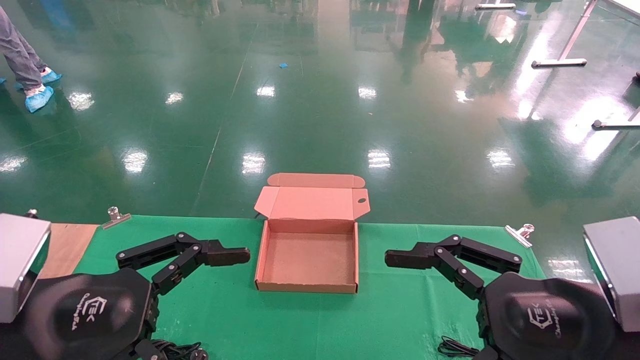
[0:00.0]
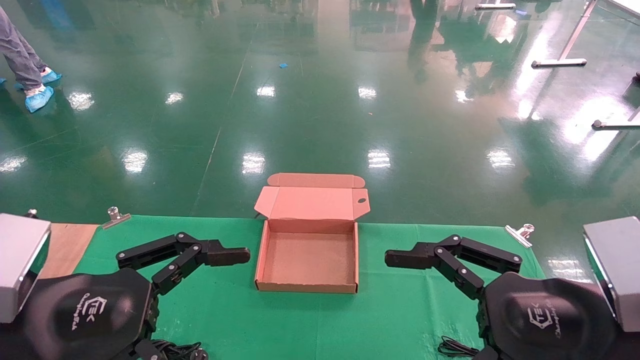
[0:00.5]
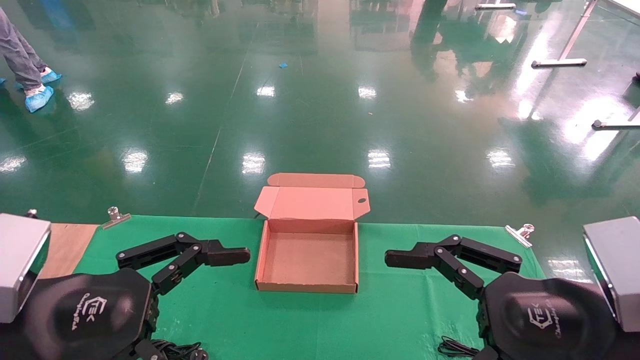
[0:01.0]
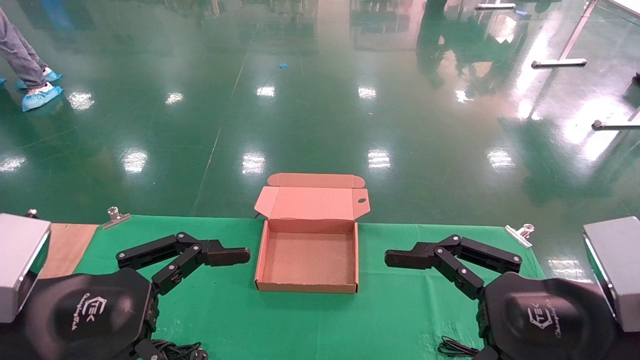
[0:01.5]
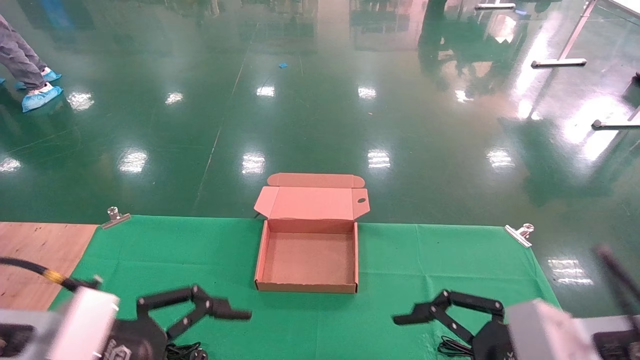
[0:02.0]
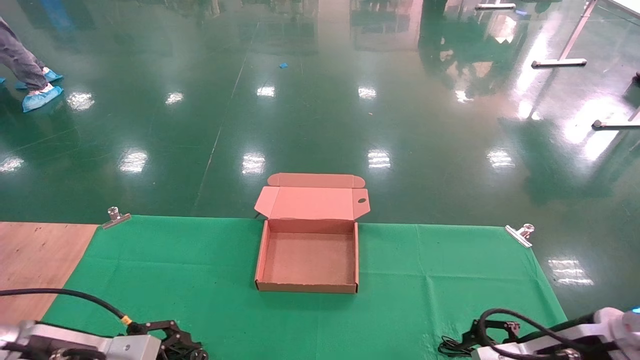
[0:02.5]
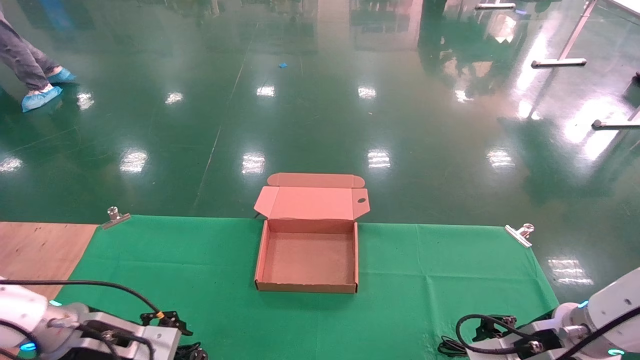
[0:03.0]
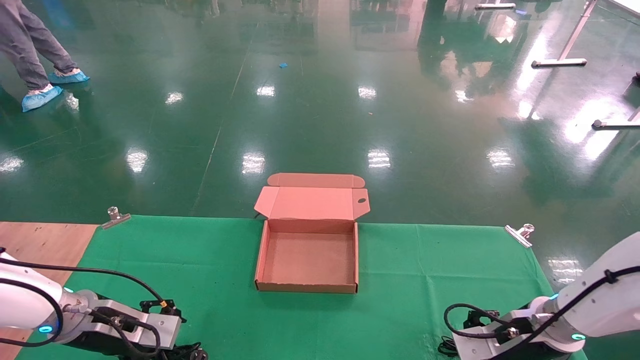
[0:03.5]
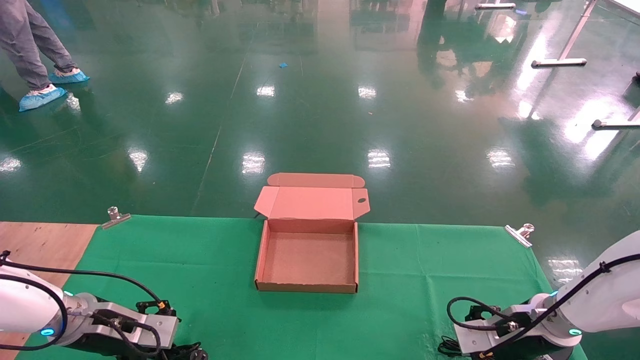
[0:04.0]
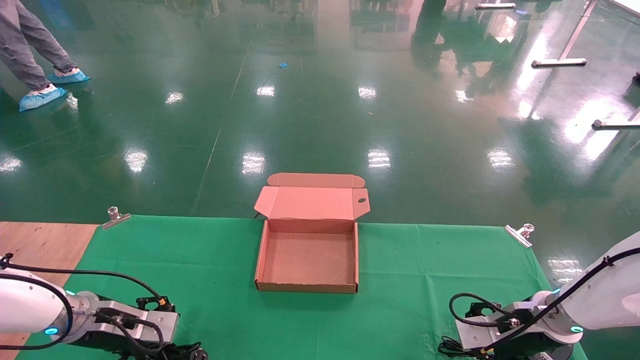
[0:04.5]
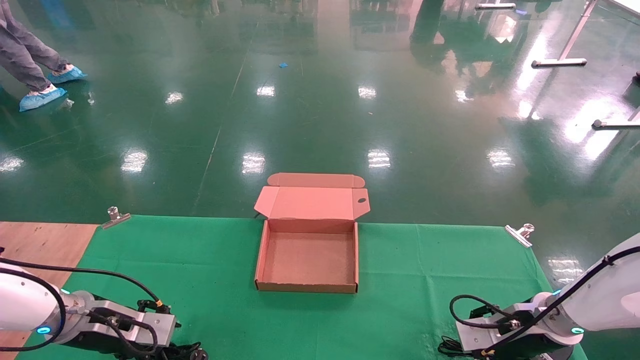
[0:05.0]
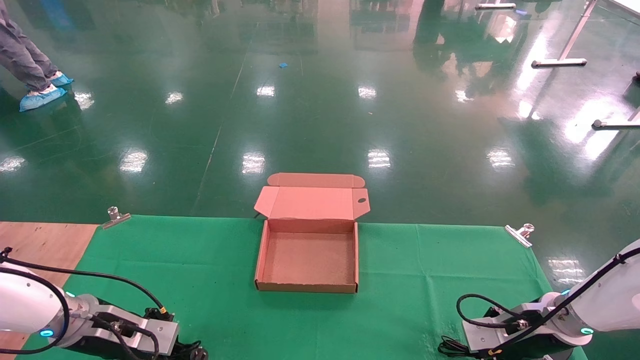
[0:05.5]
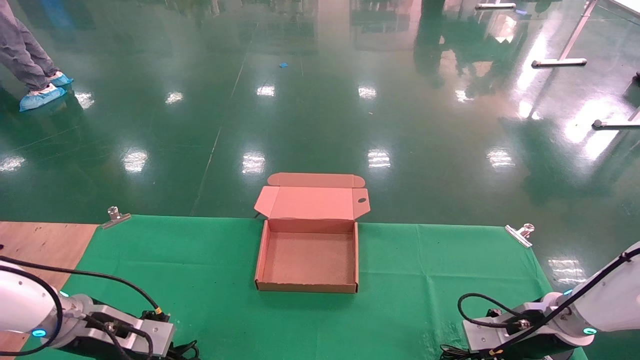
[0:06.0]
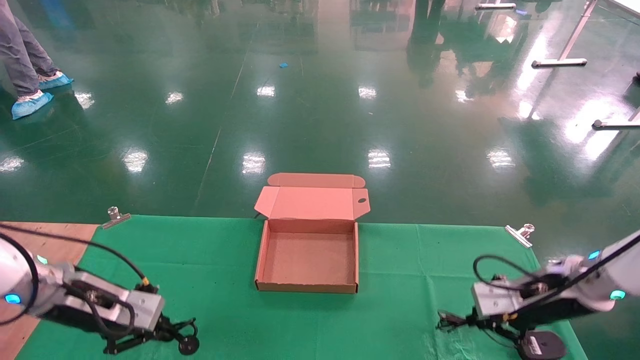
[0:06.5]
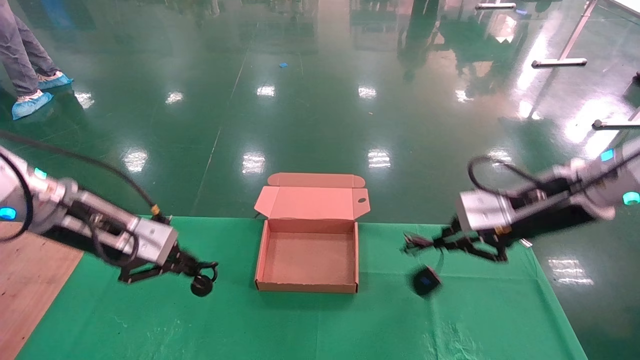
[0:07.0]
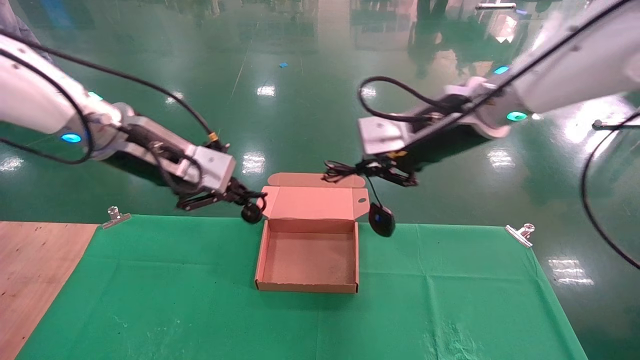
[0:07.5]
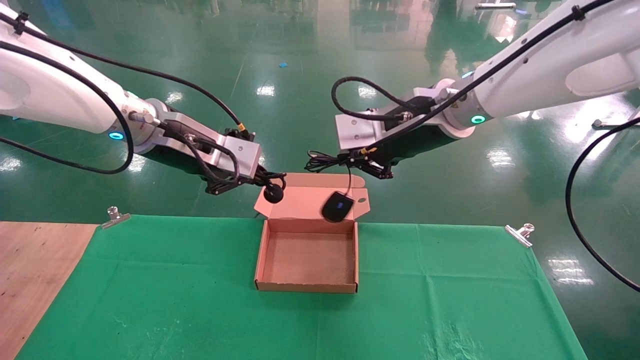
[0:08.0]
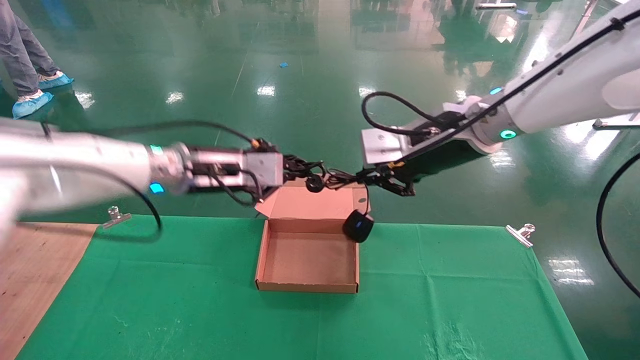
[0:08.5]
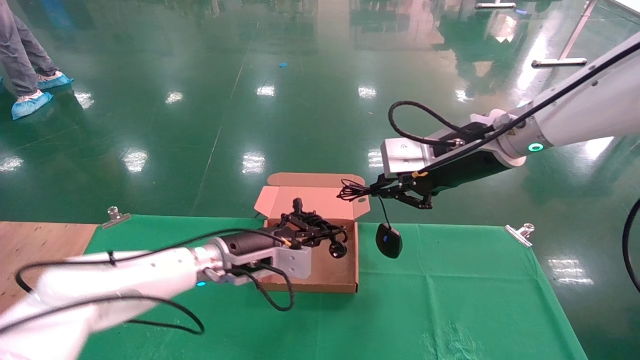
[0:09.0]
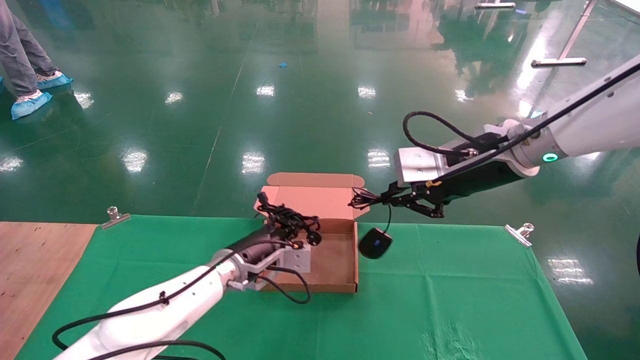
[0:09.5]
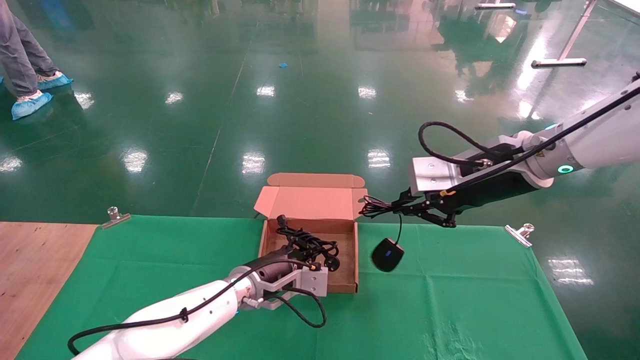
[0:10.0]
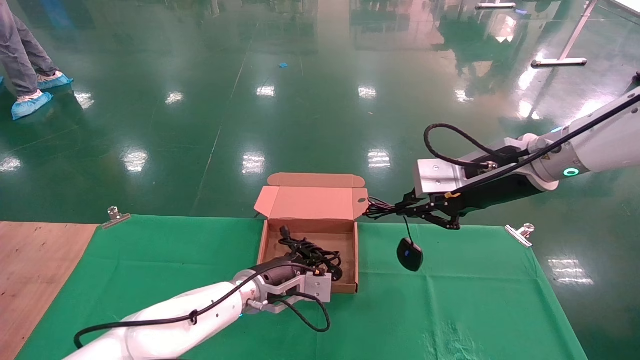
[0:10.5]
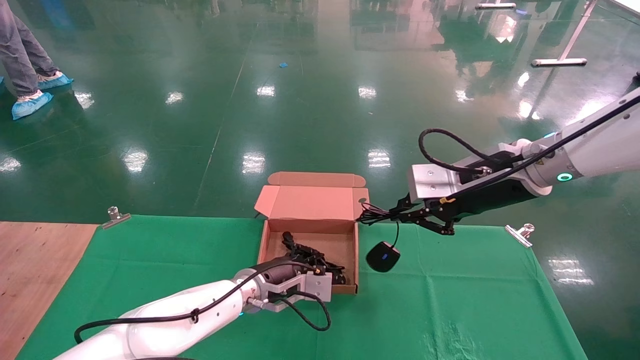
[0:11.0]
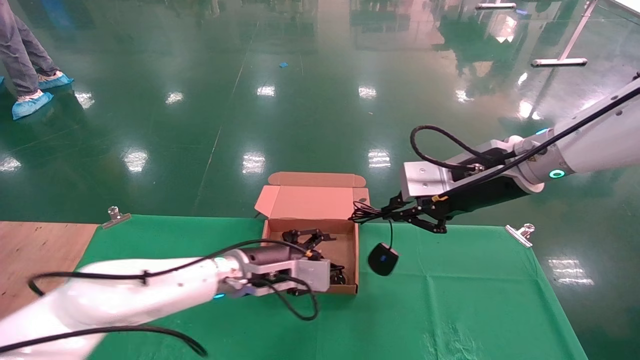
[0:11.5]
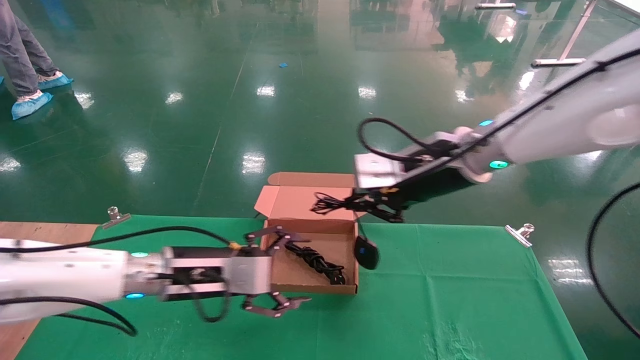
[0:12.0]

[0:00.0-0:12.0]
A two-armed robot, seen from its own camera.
Step, 0:02.0 to 0:07.0: Grab and lift both the mouse and power cord from the accessory packaging area at the same time.
0:02.0 to 0:04.0: The left gripper travels forward, downward and to the left by about 25 cm. The right gripper is displaced forward and downward by some 25 cm.
0:04.0 to 0:06.0: The right gripper closes up. The left gripper closes its fingers.
0:06.0 to 0:08.0: The left gripper heads upward and to the right, covering roughly 30 cm; the right gripper travels upward and to the left by approximately 35 cm.
0:08.0 to 0:10.0: The left gripper moves downward, approximately 30 cm. The right gripper is displaced to the right and downward by approximately 10 cm.
0:10.0 to 0:12.0: The right gripper is displaced to the left by about 10 cm, while the left gripper moves to the left, backward and upward, approximately 15 cm, and opens.

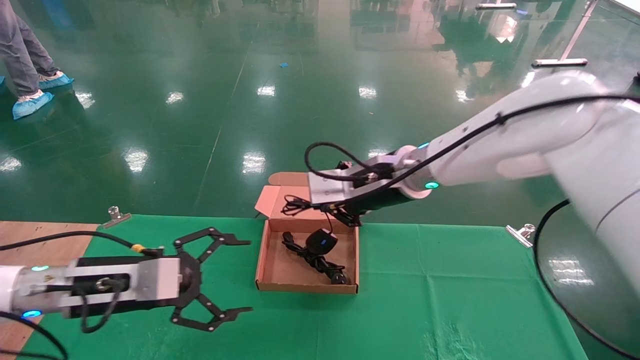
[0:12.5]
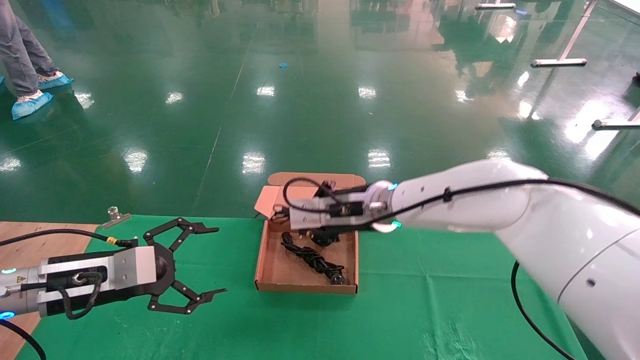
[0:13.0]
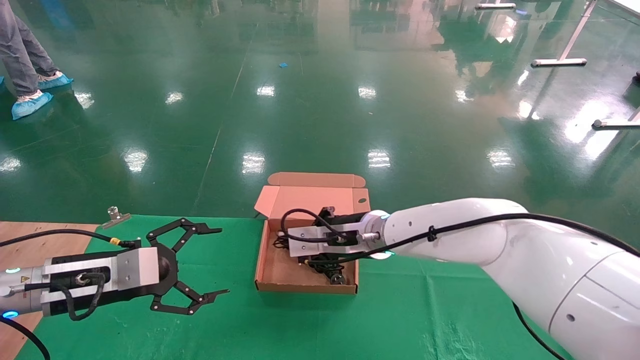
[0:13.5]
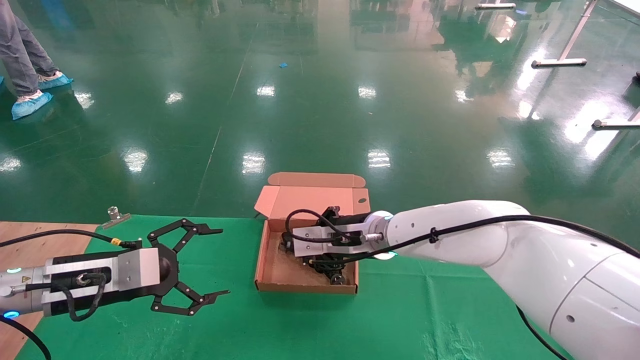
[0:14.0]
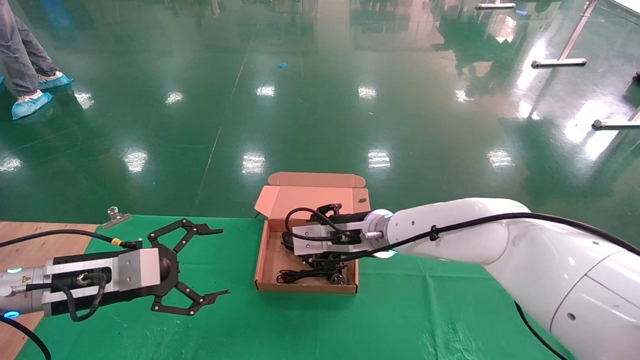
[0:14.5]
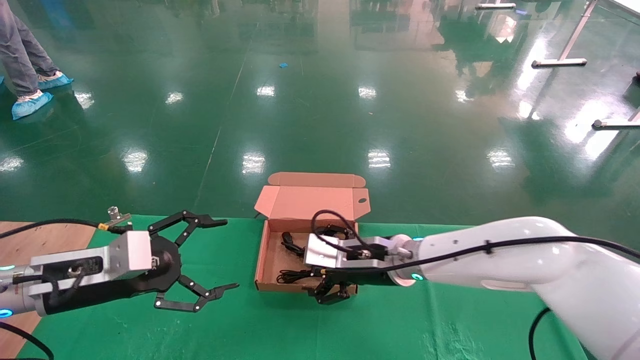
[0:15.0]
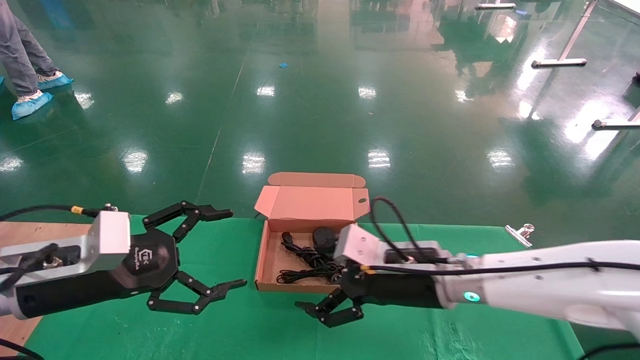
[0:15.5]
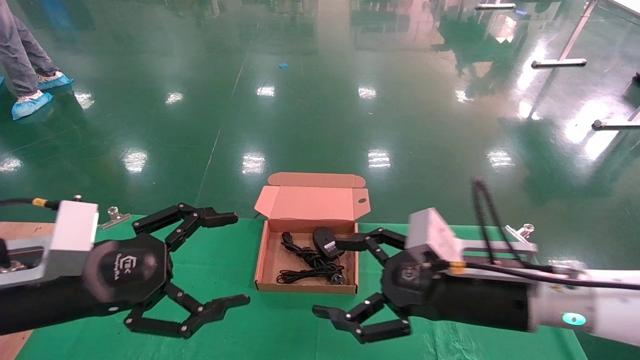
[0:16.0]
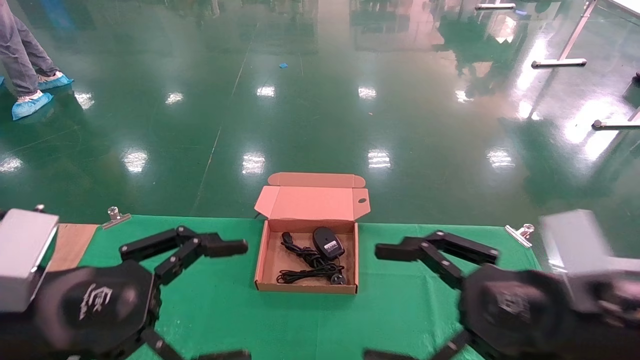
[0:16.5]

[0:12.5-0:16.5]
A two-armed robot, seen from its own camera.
Step, 0:12.5 to 0:15.0: Place the mouse and power cord into the box.
0:12.5 to 0:14.5: The right gripper goes approximately 10 cm downward, and opens up.
0:14.5 to 0:16.5: The left gripper travels backward and upward by some 15 cm, while the right gripper is displaced backward and to the right by about 30 cm, and opens up.

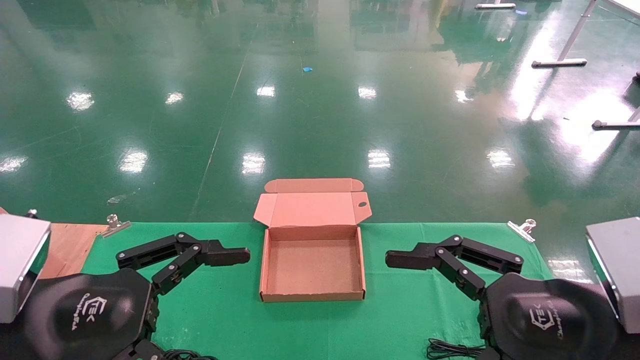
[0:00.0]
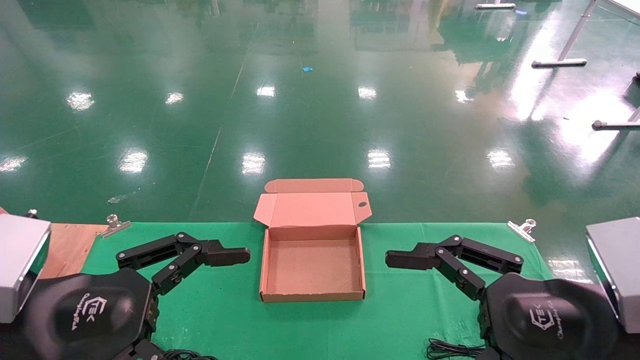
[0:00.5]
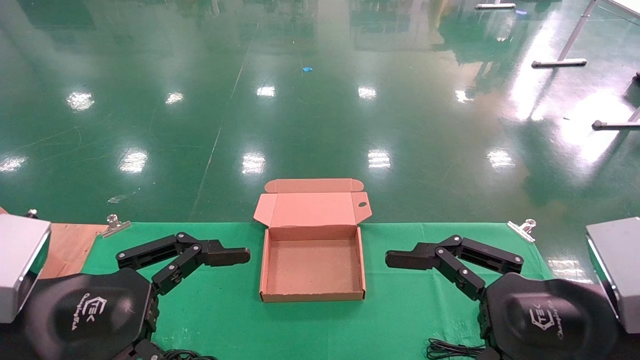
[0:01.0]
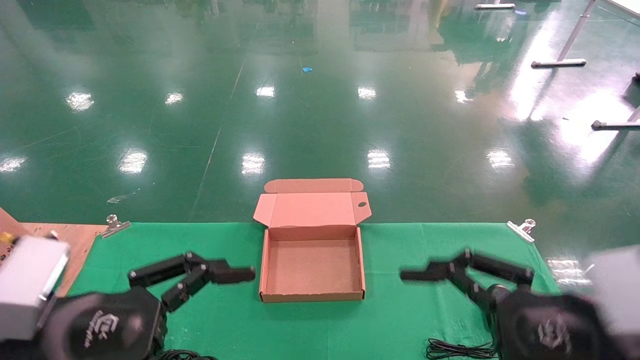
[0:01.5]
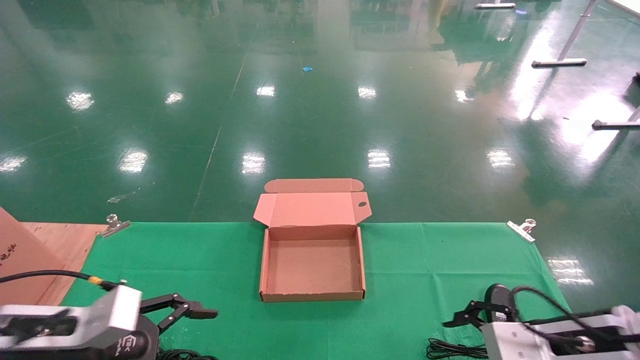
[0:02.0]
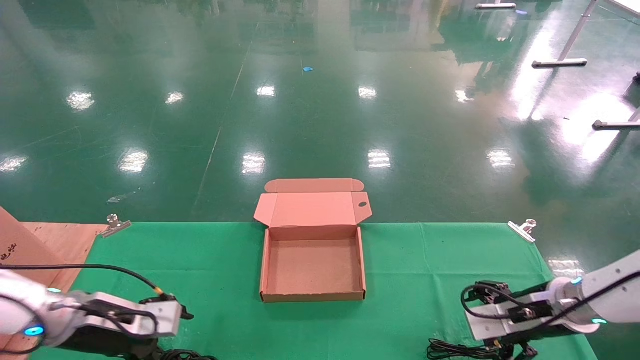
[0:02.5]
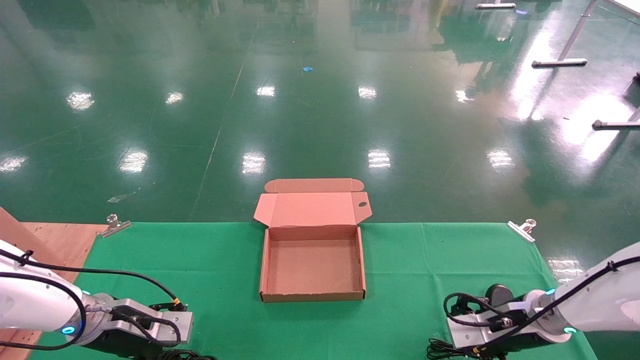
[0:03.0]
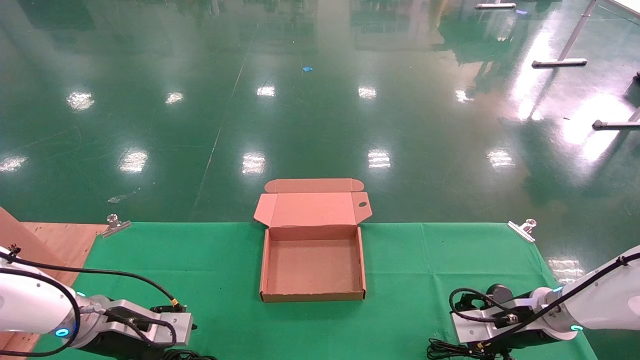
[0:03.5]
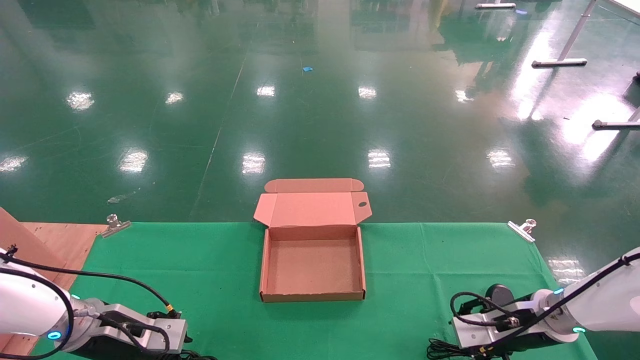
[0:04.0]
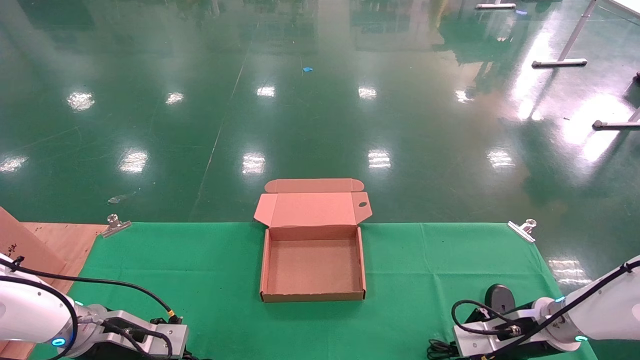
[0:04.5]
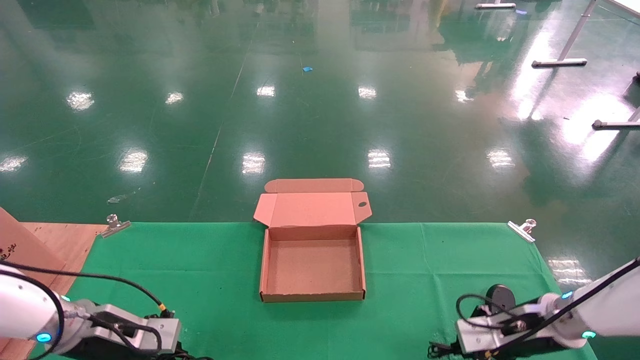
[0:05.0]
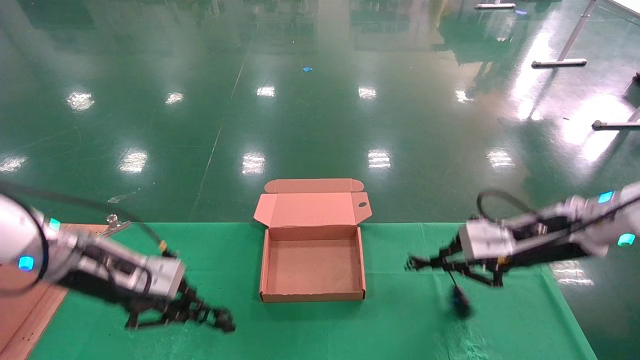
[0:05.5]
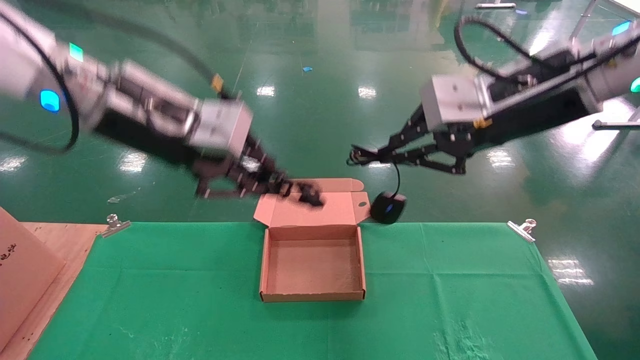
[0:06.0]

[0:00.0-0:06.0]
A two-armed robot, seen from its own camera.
Step, 0:01.5 to 0:05.5: Grab and lift both the mouse and power cord from the accessory packaging area at the same time.
0:00.0 to 0:02.0: The left gripper moves forward, downward and to the left, some 15 cm; the right gripper travels forward and downward by roughly 15 cm.
0:02.0 to 0:04.0: The two grippers go about 15 cm forward and downward.
0:04.0 to 0:06.0: The right gripper goes some 35 cm upward, and closes its fingers. Meanwhile the left gripper travels upward and to the right by approximately 35 cm, and closes up.
